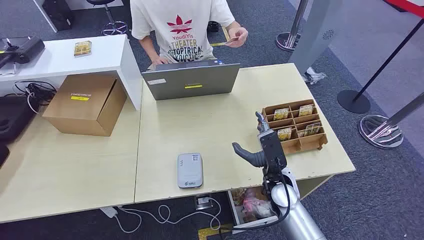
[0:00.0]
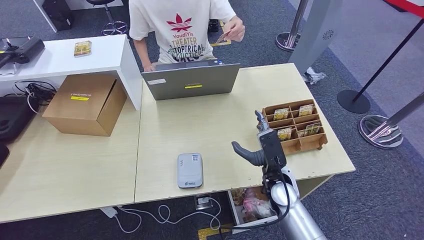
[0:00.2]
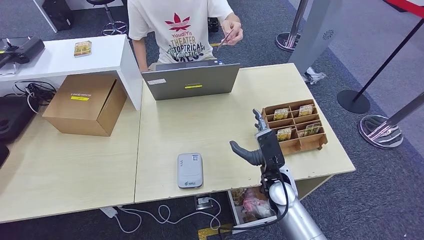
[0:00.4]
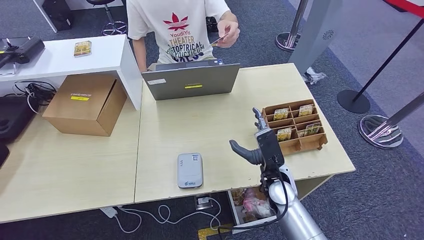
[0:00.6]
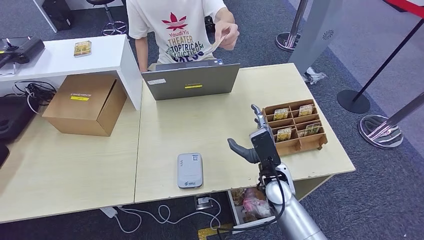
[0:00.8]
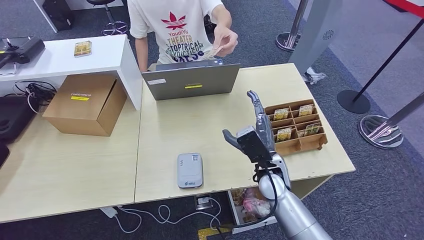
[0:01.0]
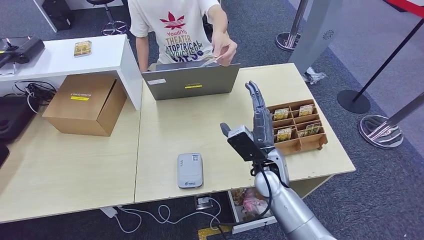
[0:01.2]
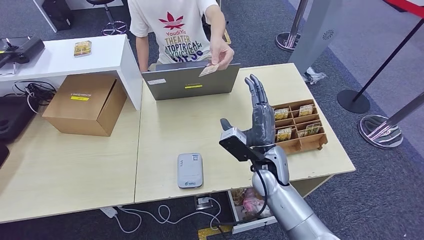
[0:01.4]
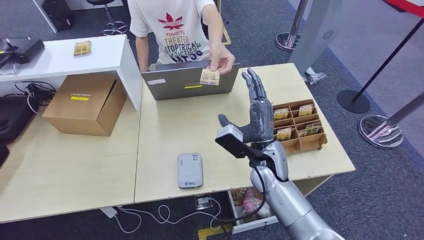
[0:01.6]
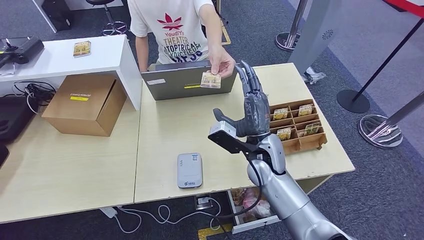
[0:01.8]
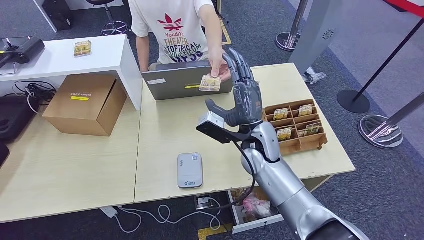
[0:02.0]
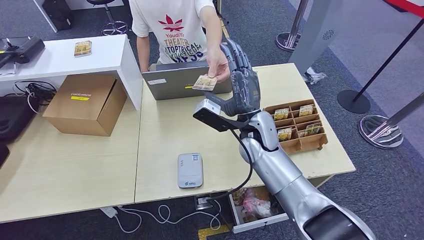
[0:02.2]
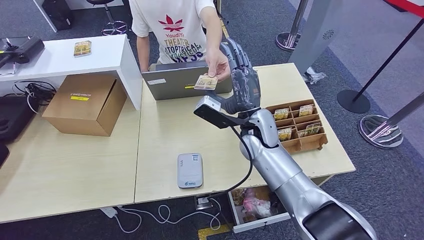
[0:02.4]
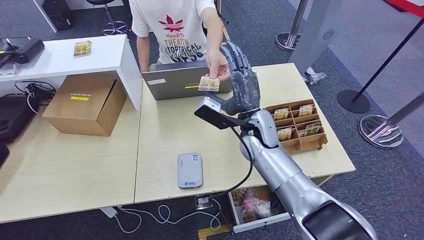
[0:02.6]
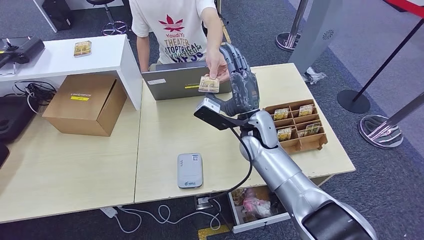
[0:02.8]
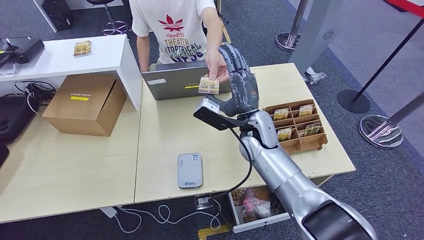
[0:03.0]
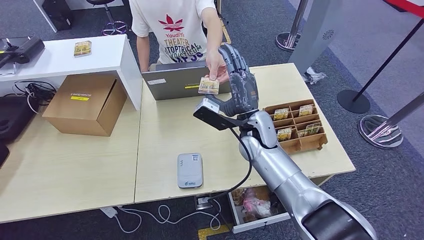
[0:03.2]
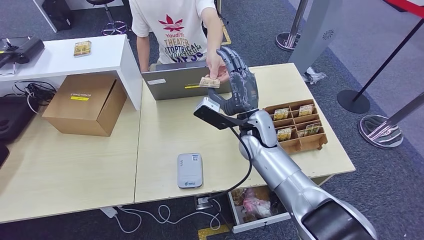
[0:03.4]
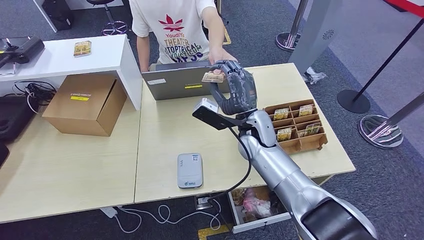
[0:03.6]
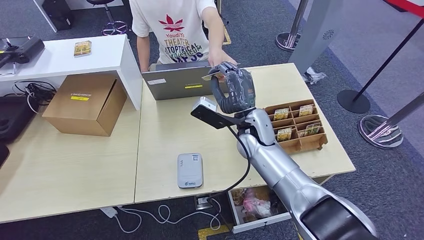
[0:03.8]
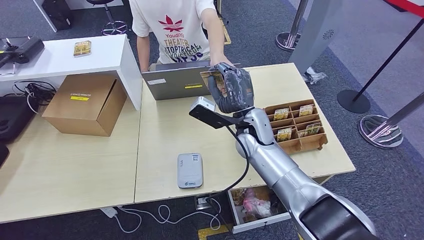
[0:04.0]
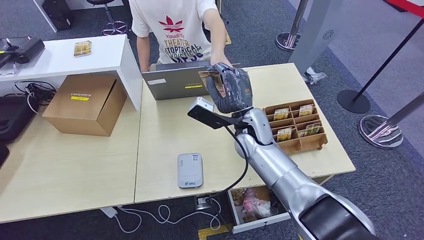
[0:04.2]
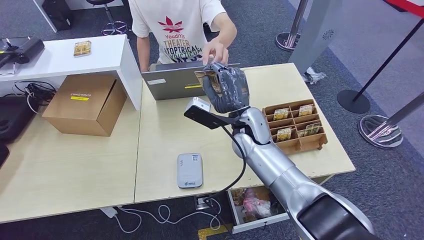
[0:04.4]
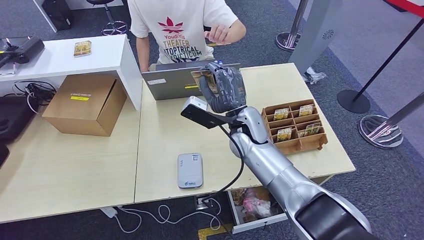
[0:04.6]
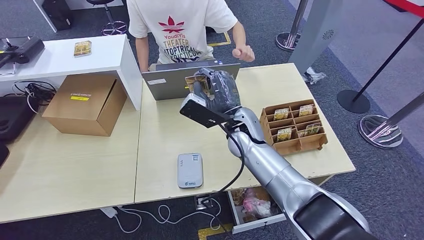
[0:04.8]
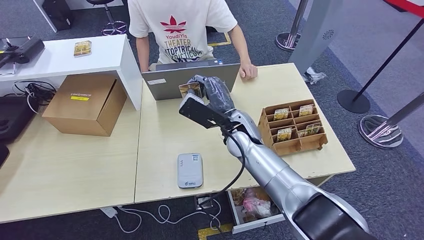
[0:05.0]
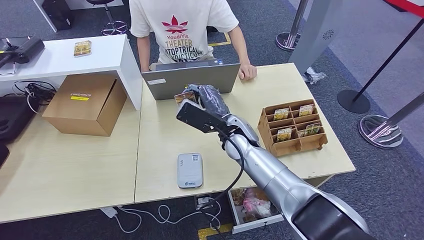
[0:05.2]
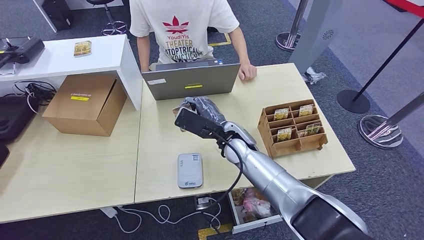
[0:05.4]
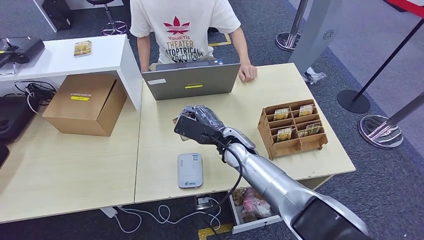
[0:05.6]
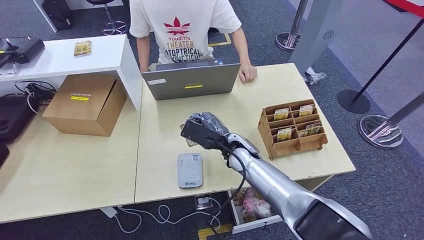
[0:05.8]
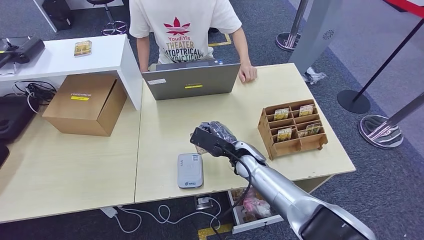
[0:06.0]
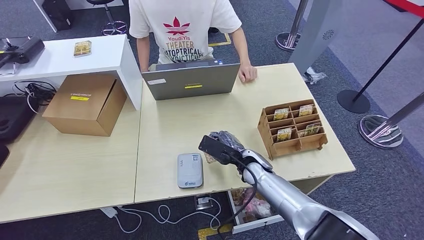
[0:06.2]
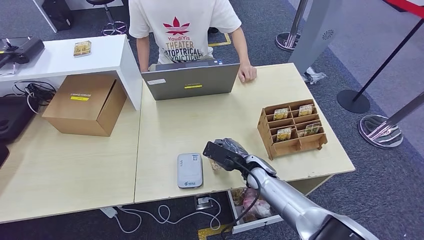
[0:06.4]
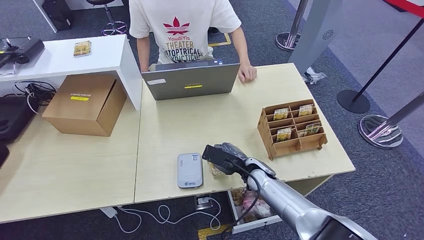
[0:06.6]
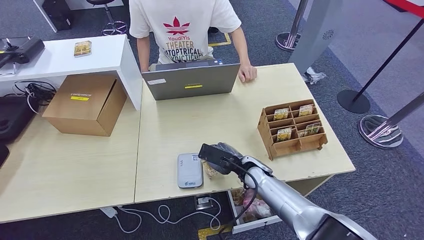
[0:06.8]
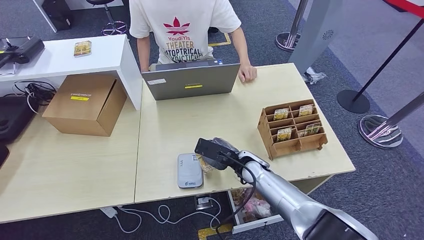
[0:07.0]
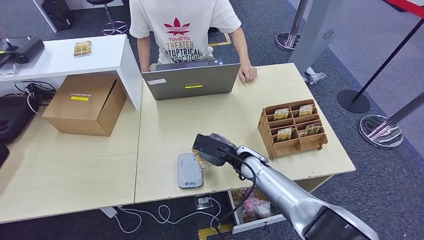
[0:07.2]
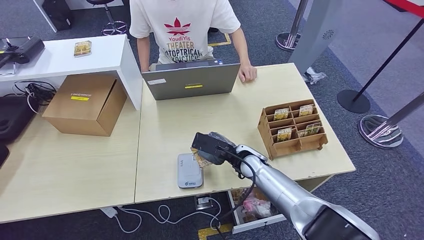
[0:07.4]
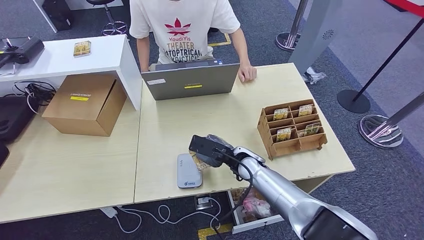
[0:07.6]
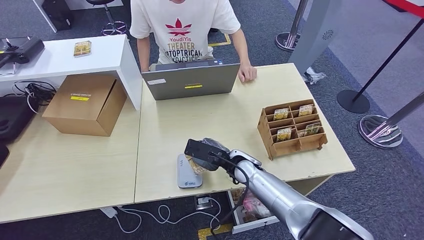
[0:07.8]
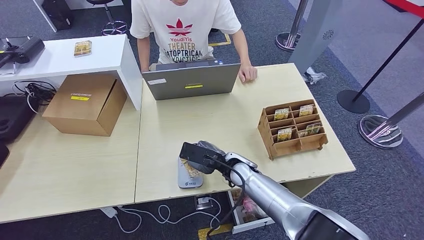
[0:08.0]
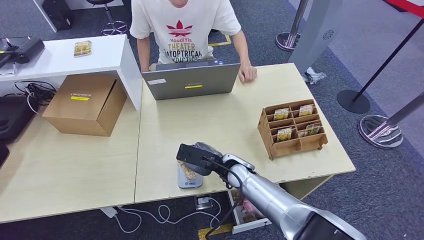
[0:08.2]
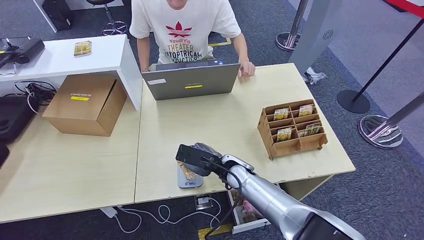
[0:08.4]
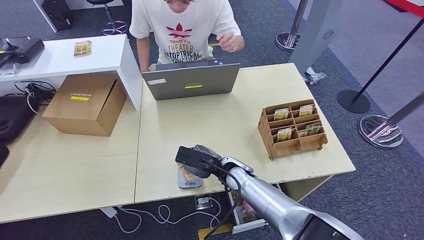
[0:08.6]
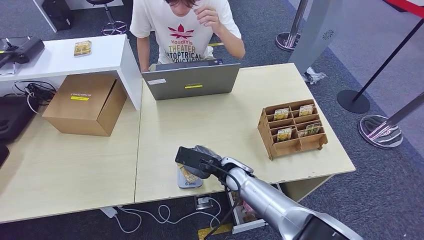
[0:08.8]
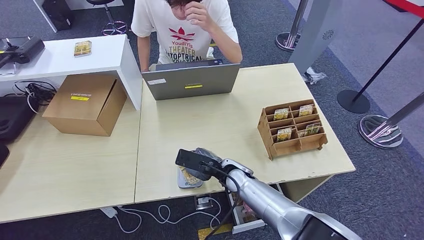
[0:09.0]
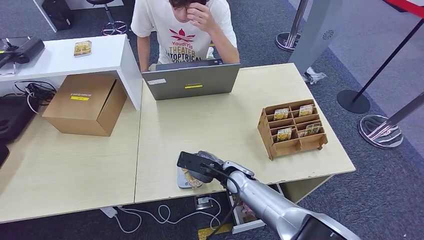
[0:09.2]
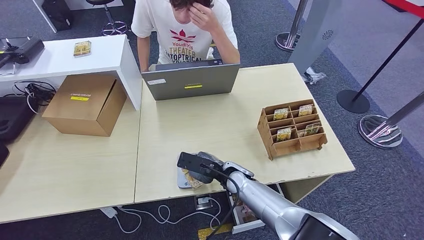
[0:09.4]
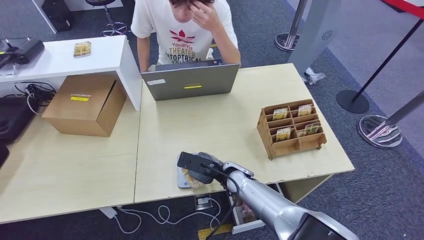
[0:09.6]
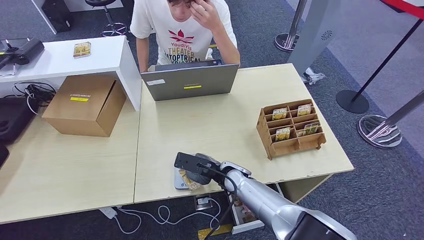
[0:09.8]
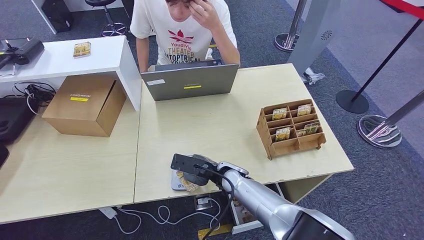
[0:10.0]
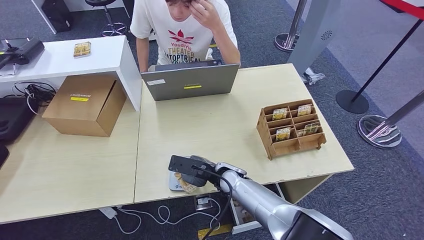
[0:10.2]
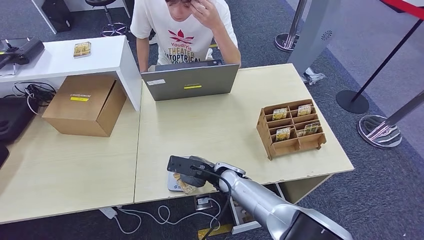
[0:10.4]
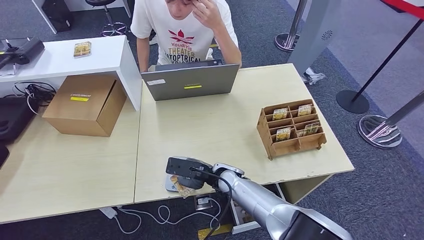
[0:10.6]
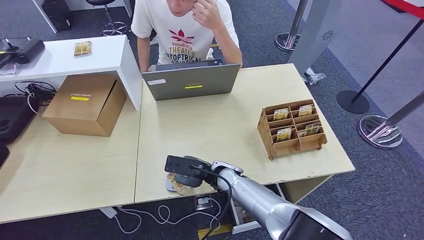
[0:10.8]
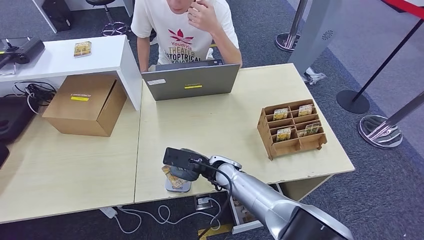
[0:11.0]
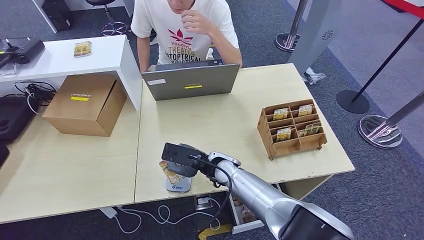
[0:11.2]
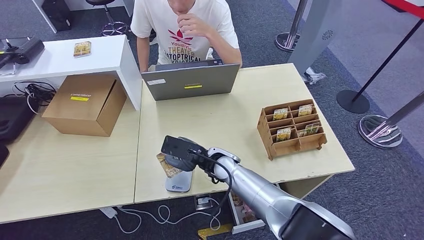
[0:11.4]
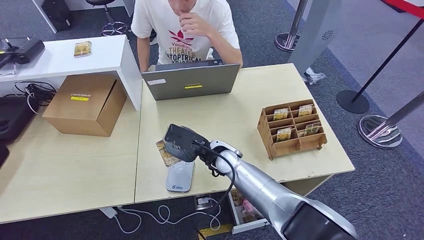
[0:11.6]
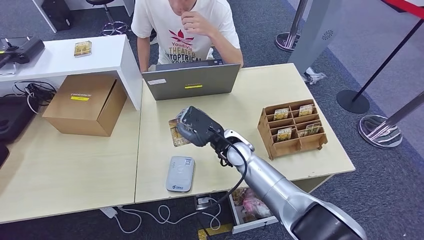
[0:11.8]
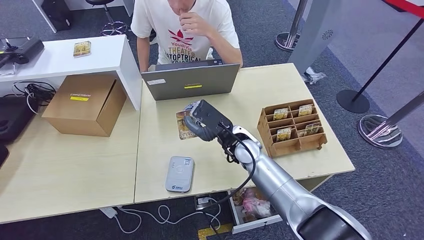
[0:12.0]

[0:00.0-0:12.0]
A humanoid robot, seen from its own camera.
Step, 0.0 to 4.2 s: Take the ID card from the person's hand.
Step, 4.4 to 11.2 s: Place the ID card on the card reader.
1.6 to 3.0 s: The right hand moves forward, about 5 cm.
3.0 to 4.4 s: The hands move only a little.
4.4 to 6.0 s: The right hand shifts some 10 cm downward.
7.6 to 9.0 s: The hands make only small movements.
9.0 to 10.4 s: The hands stay close to where they were, moving slightly.
10.4 to 12.0 s: The right hand shifts approximately 10 cm upward.

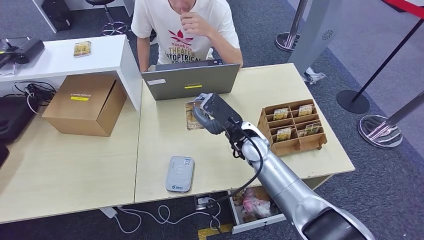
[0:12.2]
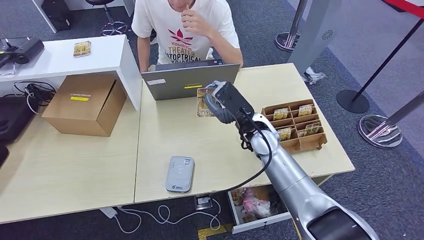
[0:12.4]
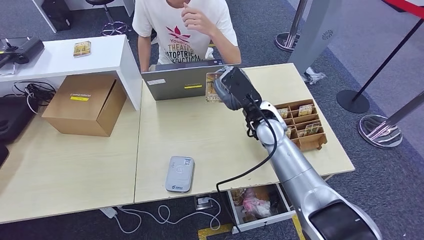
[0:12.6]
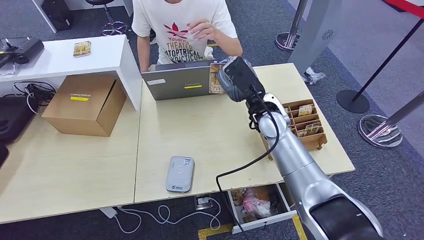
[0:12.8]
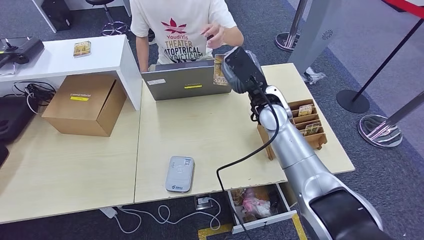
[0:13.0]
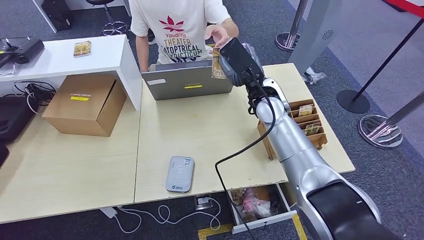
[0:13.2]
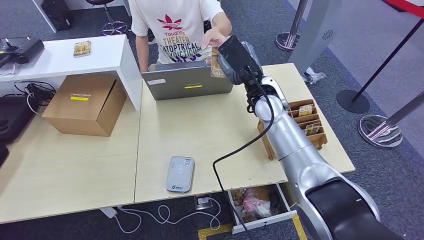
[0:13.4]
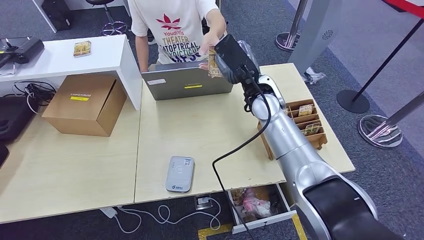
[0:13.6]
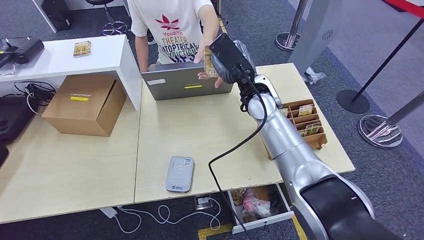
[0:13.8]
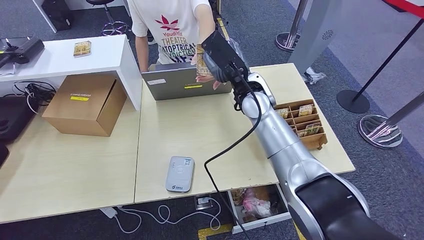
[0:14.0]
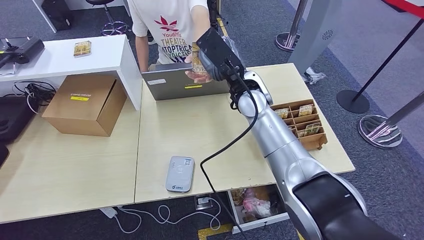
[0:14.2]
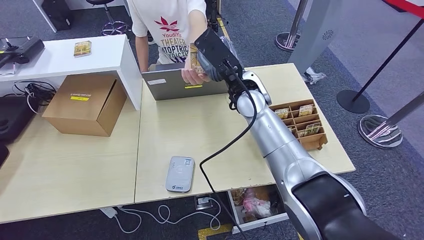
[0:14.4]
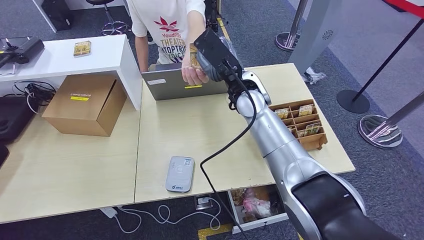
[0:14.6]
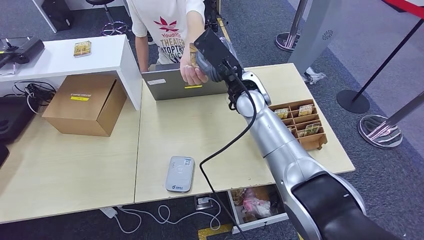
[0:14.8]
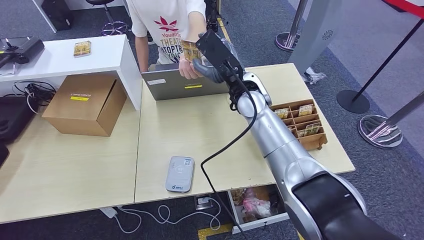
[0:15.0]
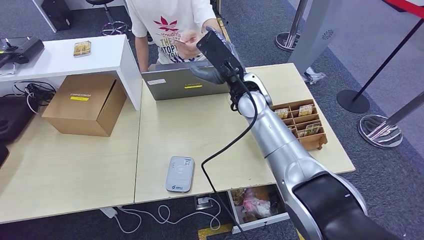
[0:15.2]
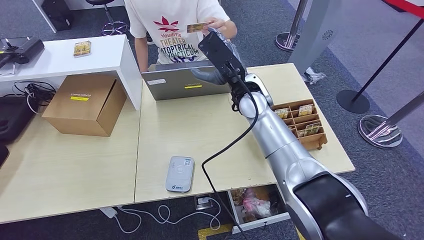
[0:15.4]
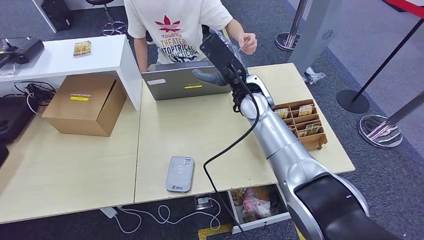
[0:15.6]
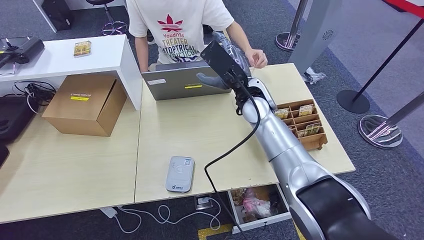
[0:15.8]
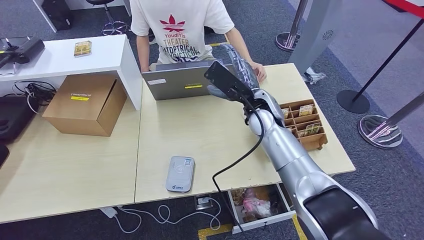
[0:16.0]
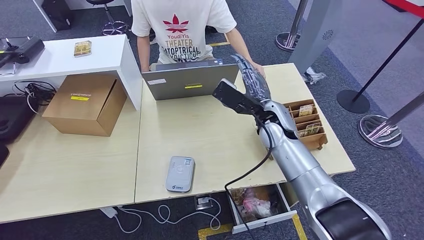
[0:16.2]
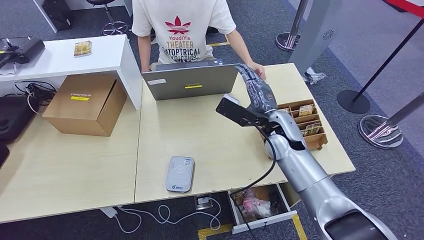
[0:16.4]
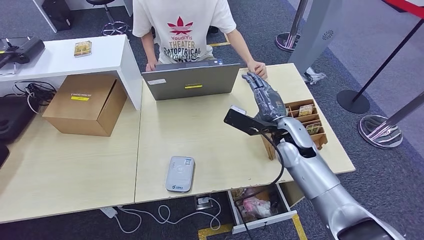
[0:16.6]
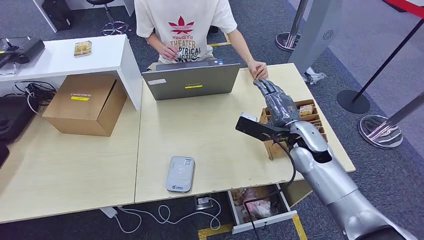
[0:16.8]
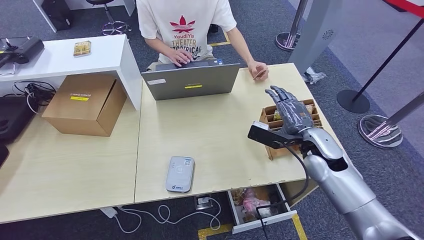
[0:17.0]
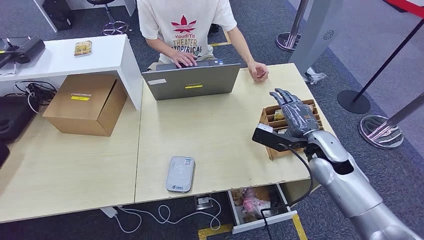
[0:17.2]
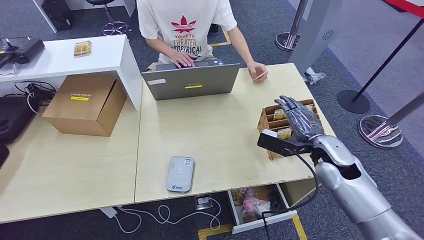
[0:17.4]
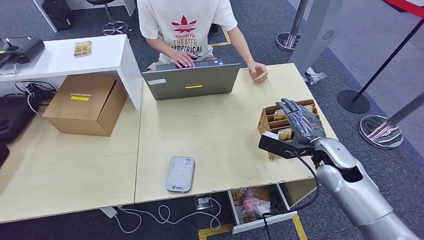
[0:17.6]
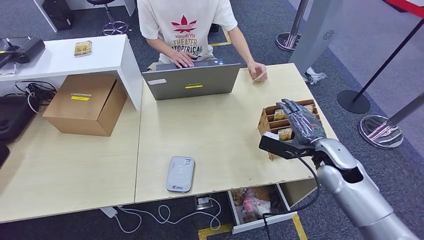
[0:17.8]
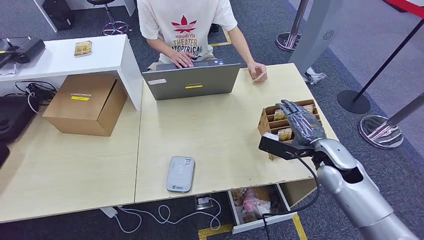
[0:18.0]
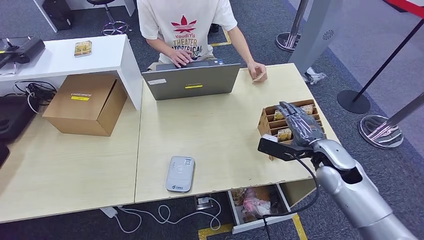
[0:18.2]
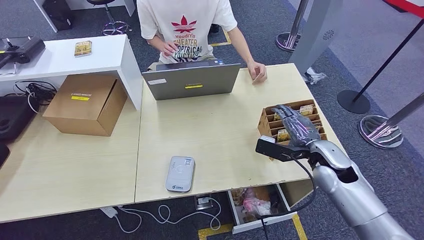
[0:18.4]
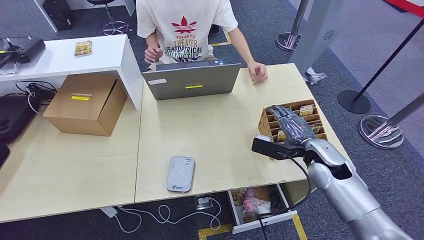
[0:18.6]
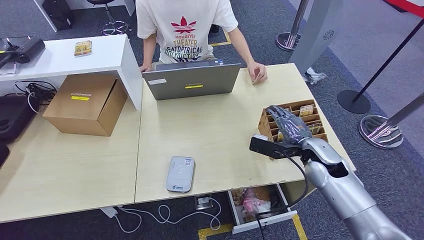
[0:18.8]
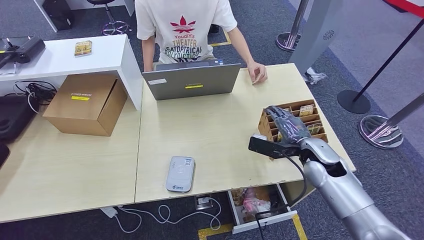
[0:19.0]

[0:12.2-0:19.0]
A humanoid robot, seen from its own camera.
Step, 12.2 to 15.4 s: Hand the ID card to the person.
12.2 to 13.6 s: The right hand heads upward and forward, covering roughly 10 cm.
13.6 to 15.0 s: The hands make only small movements.
15.0 to 16.2 s: The right hand moves to the right and downward, approximately 10 cm.
16.2 to 17.6 s: The right hand goes some 20 cm to the right and backward.
17.6 to 19.0 s: The hands make only small movements.
